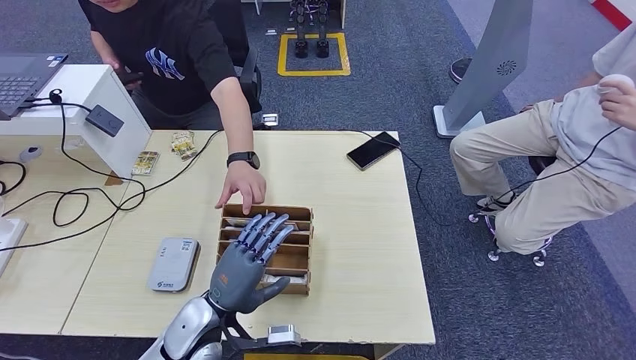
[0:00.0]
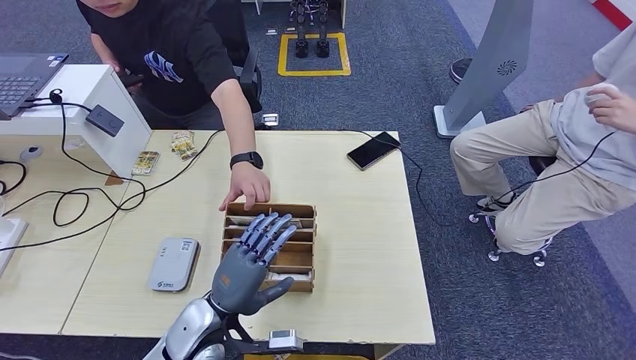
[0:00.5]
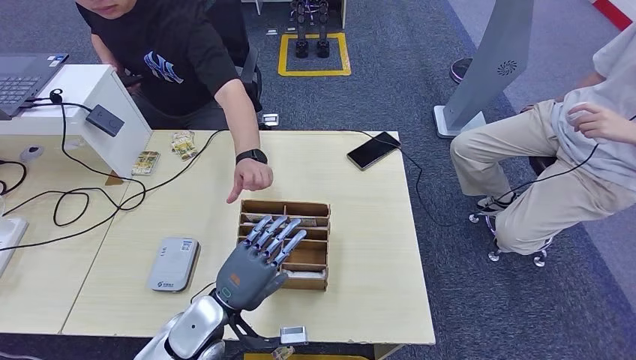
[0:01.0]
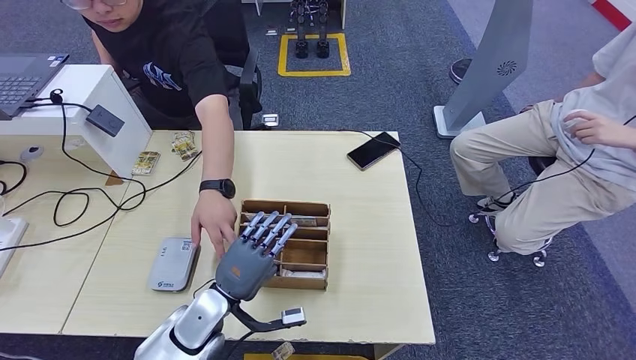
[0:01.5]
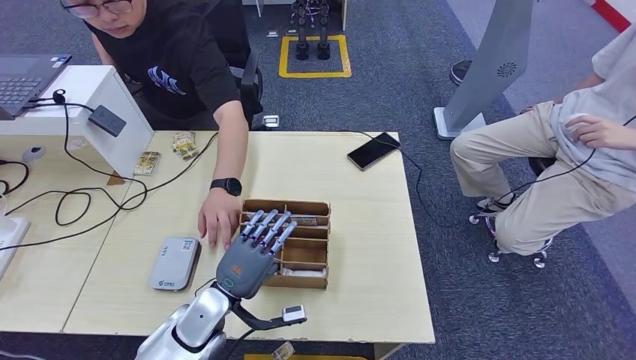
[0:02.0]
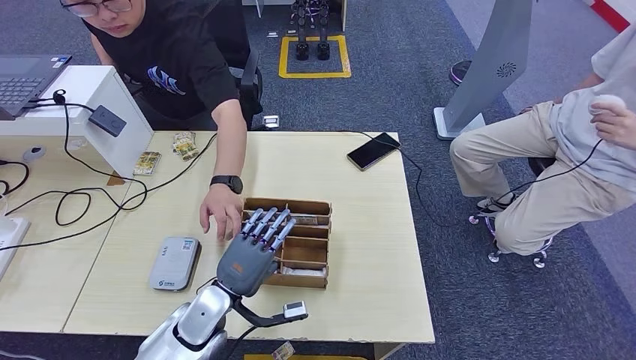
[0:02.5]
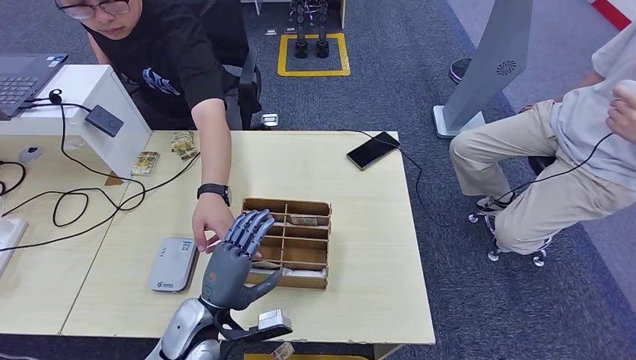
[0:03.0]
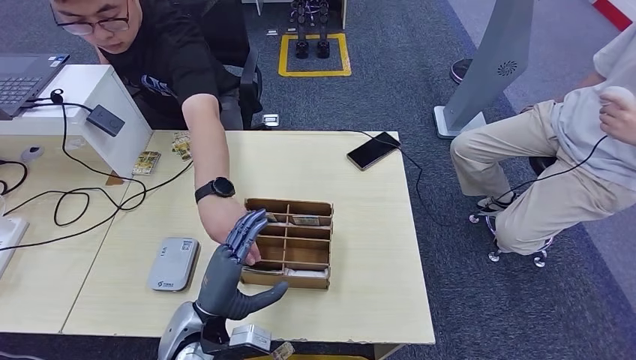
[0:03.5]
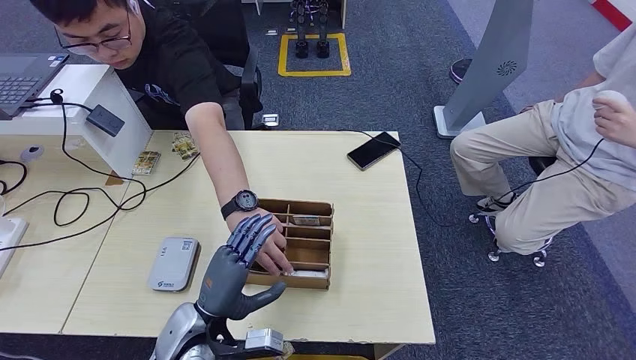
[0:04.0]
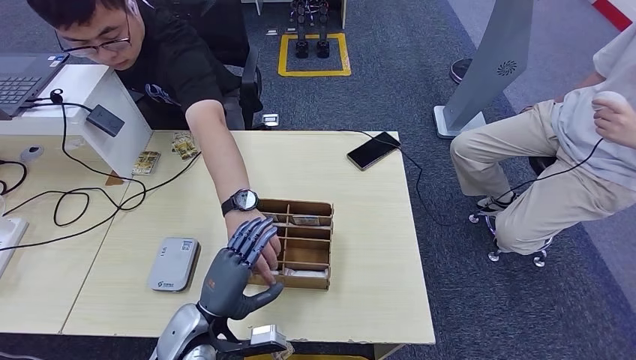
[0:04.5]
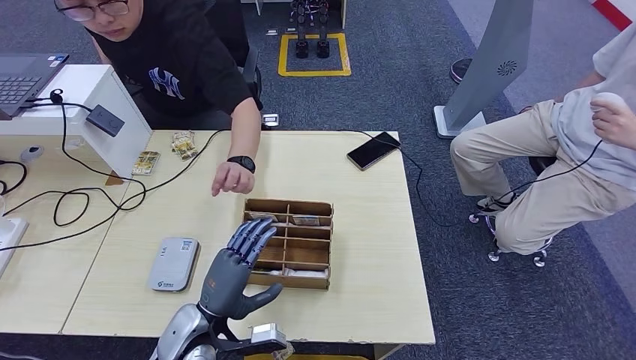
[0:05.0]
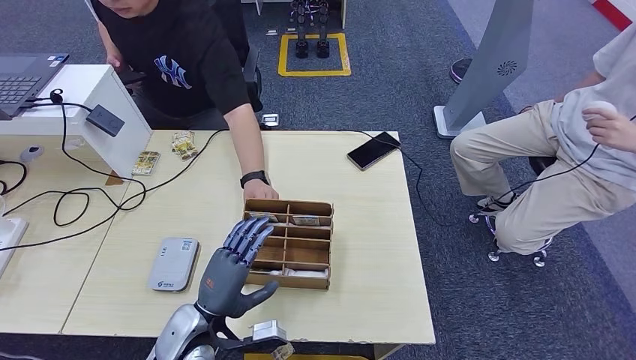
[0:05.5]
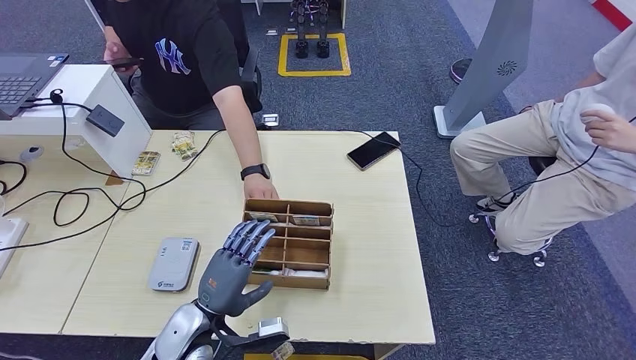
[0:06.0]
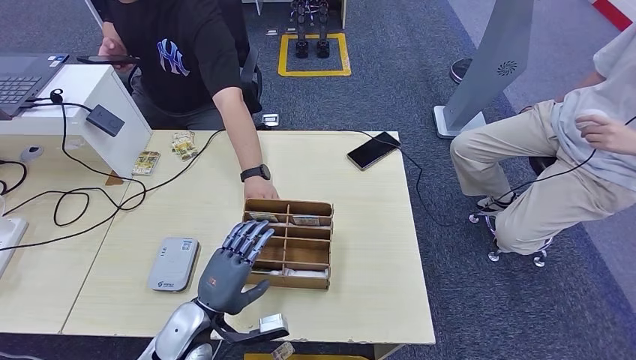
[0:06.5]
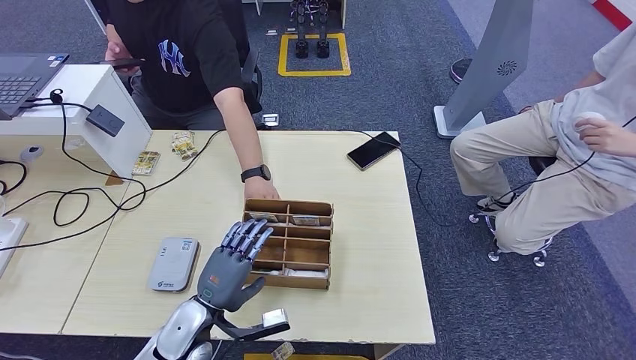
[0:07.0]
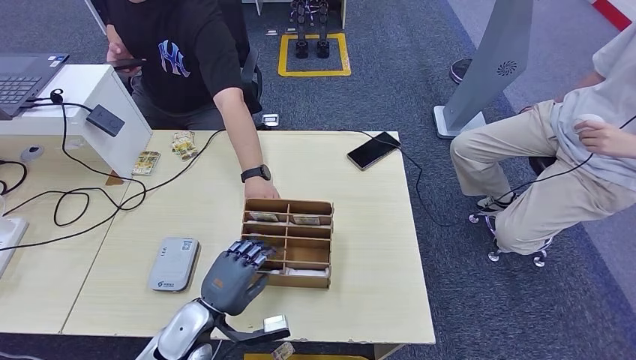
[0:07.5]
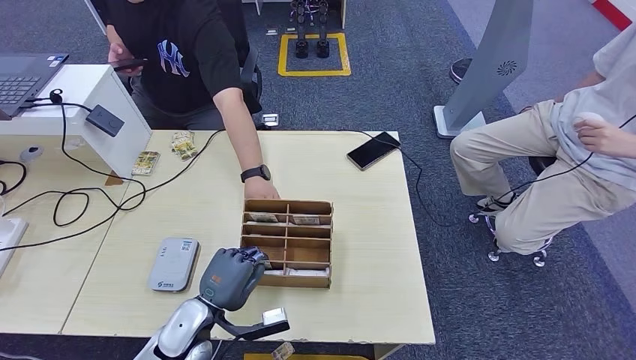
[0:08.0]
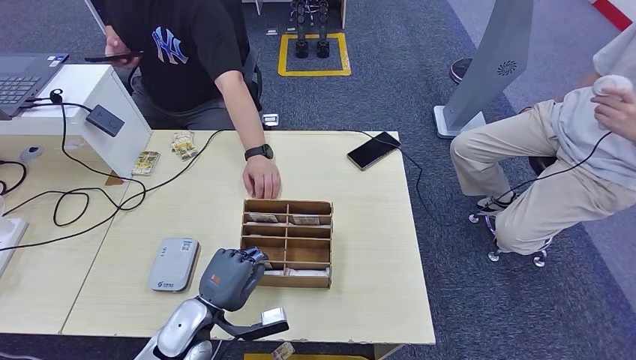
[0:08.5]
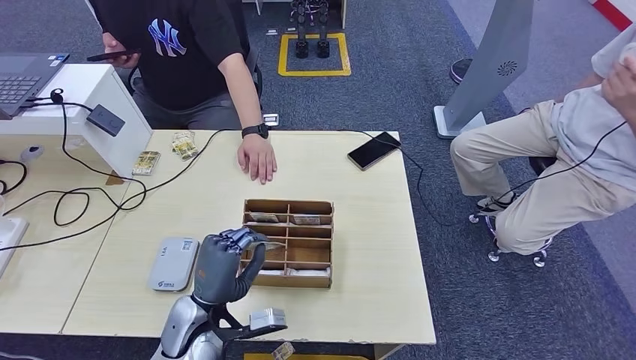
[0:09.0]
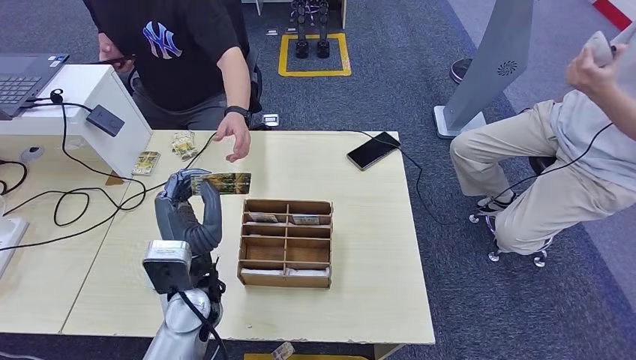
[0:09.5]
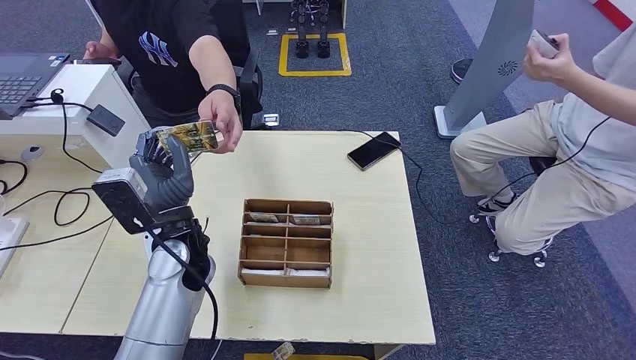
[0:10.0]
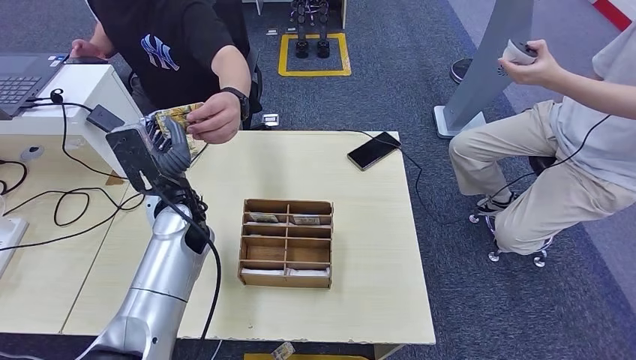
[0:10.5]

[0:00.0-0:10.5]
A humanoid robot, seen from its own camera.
Step, 0:06.5 to 0:09.5: Pick up the room key from the key card box.
0:06.5 to 0:08.5: There are only small adjustments of the hands.
0:08.5 to 0:10.5: The left hand shifts roughly 20 cm upward and forward.

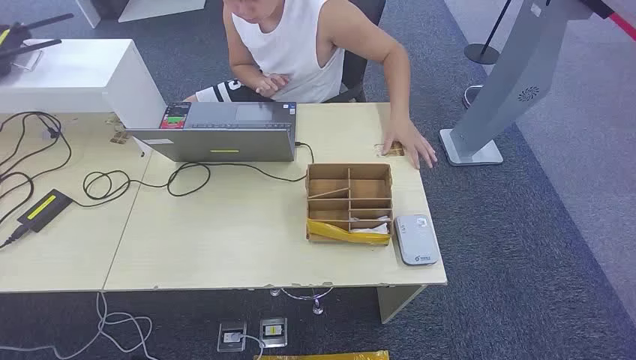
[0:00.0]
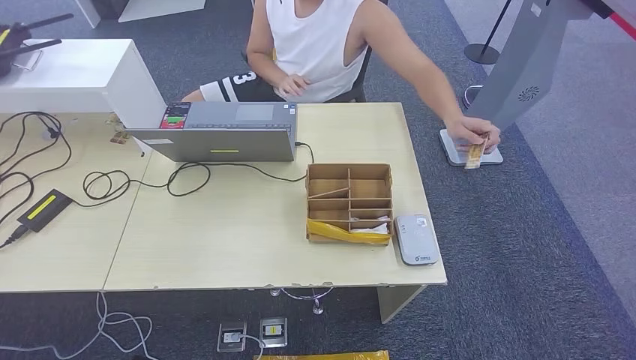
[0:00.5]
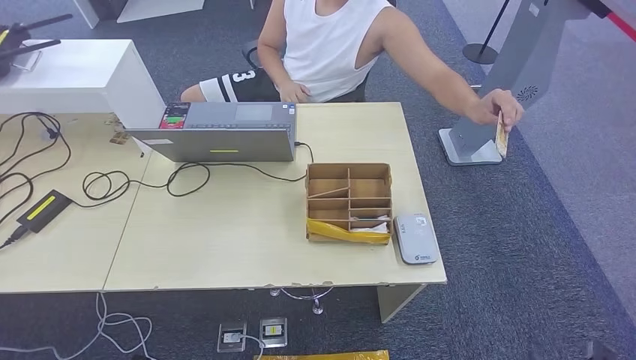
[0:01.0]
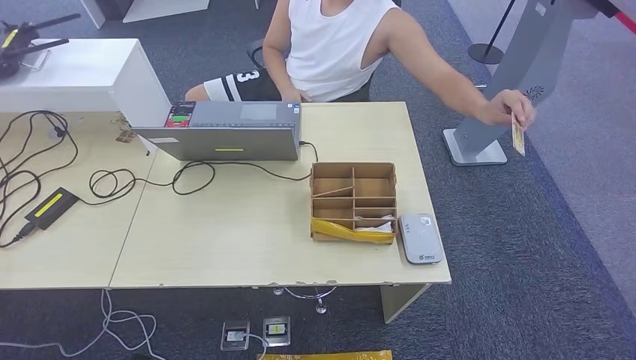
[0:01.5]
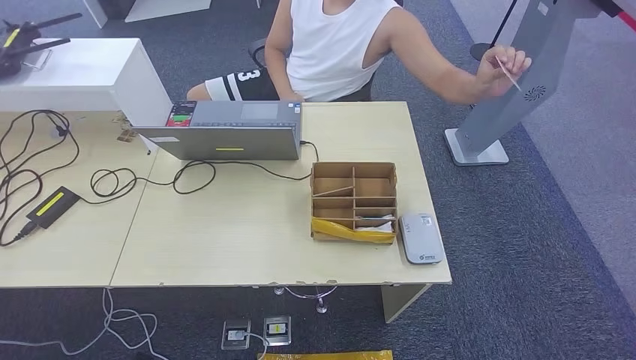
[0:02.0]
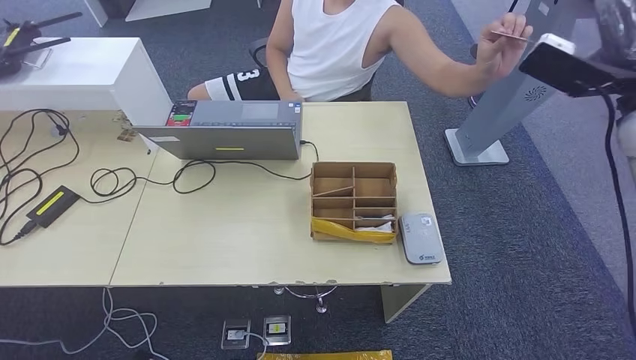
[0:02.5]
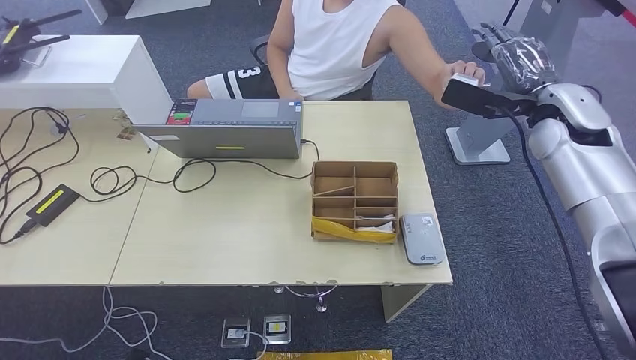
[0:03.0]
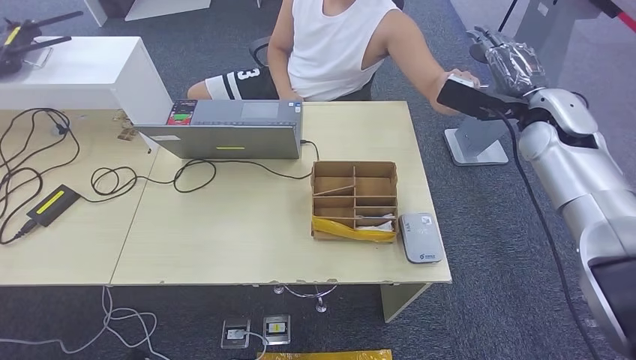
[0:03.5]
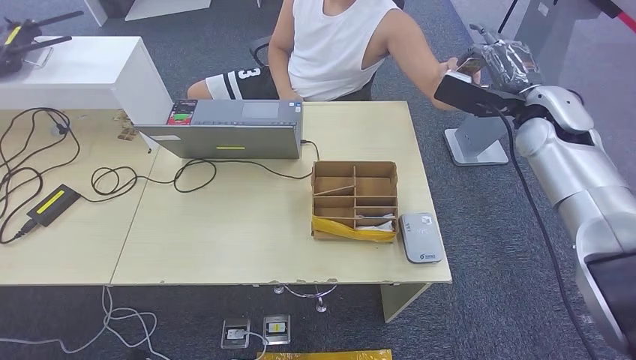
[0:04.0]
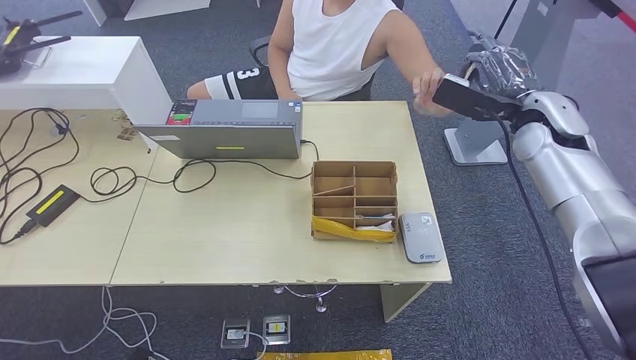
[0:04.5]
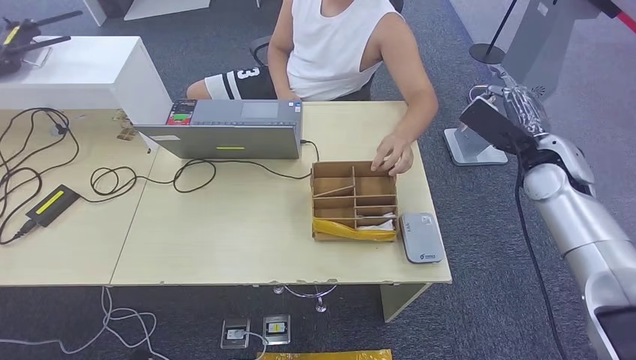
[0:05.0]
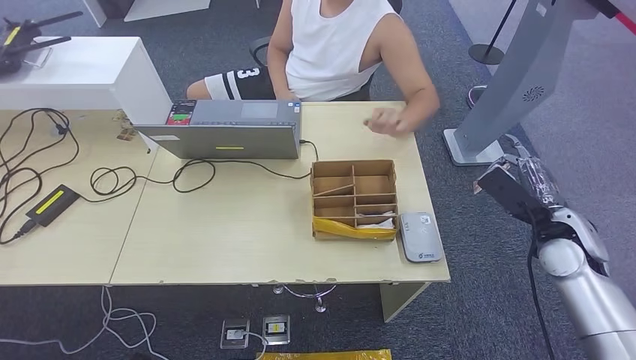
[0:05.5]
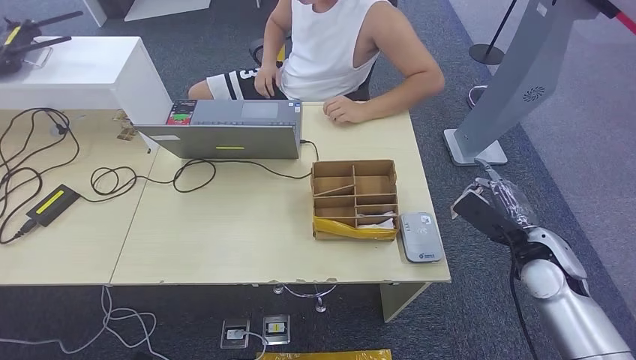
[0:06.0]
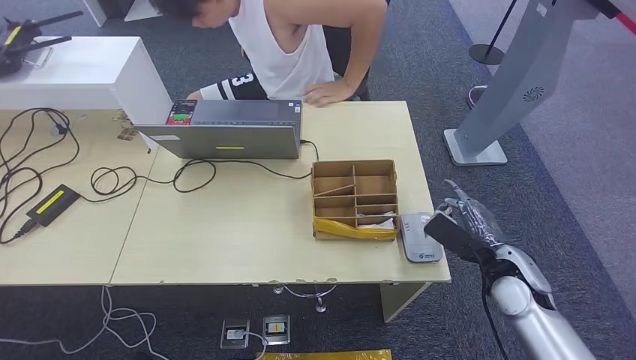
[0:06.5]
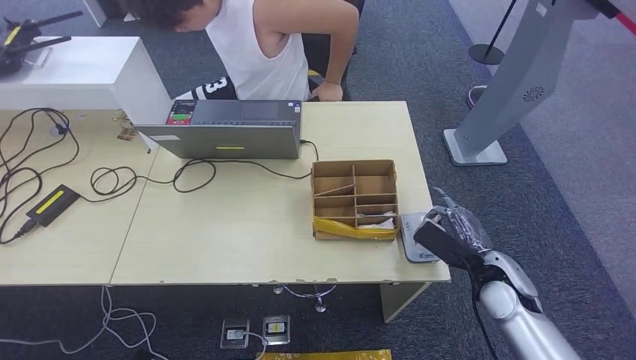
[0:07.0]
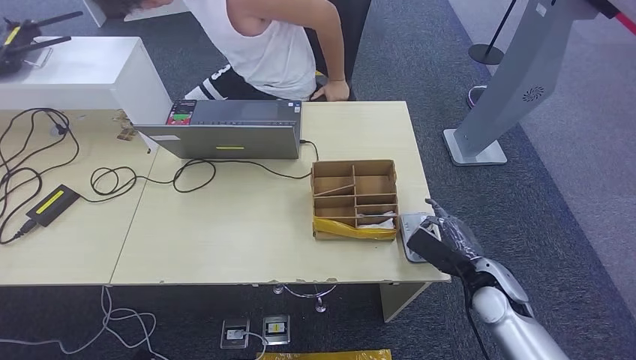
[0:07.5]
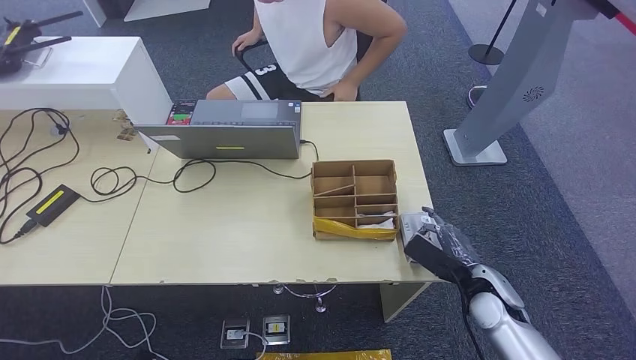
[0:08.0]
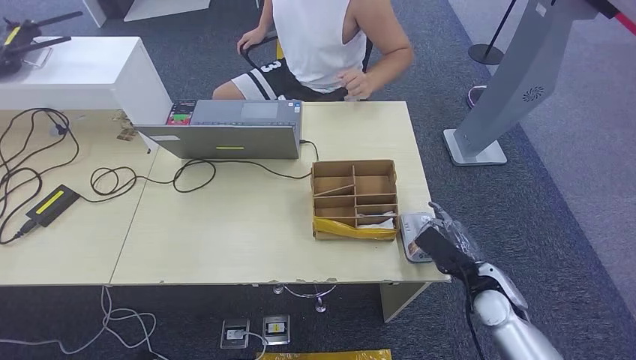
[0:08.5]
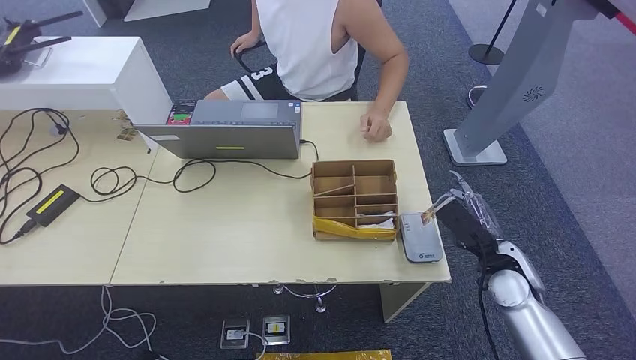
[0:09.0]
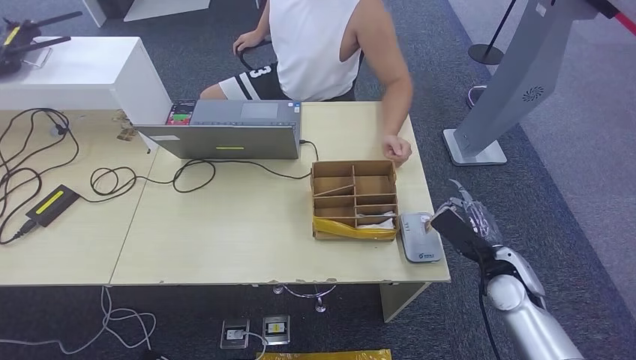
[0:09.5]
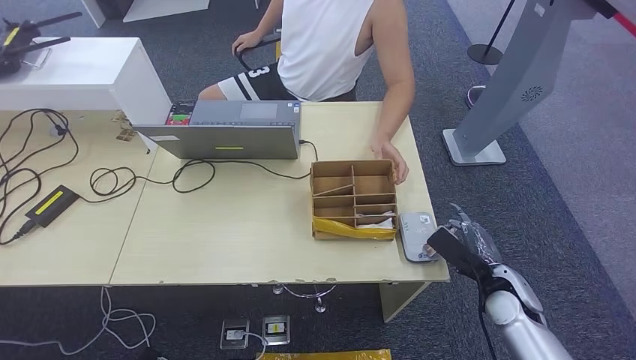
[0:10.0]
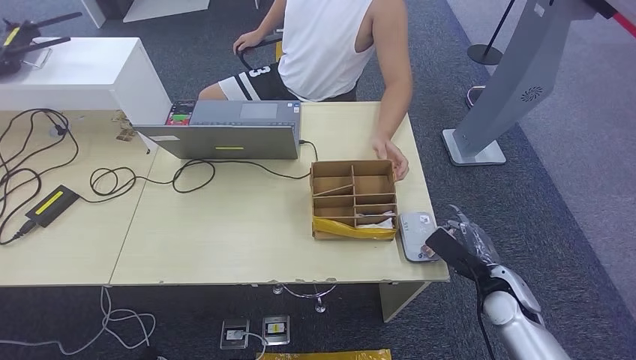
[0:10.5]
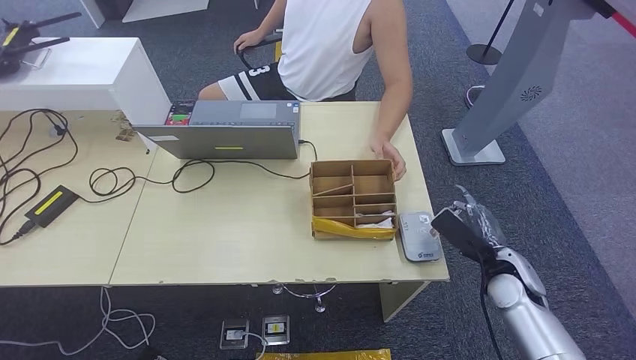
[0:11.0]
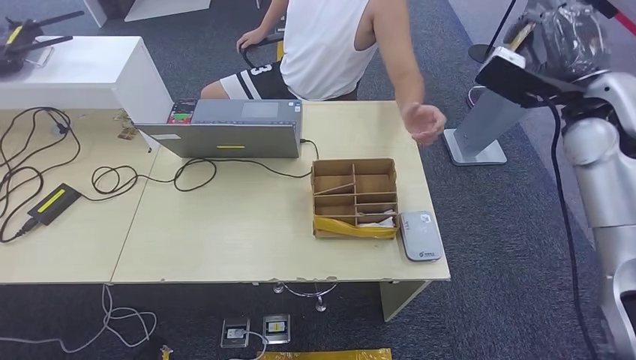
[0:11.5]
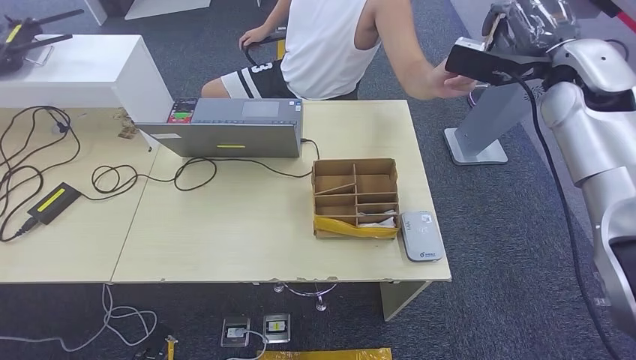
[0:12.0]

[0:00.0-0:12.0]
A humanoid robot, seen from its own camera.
Step, 0:00.0 to 0:03.5: Take the ID card from the person's hand.
Step, 0:04.0 to 0:06.5: Place the ID card on the card reader.
0:02.0 to 0:04.0: The right hand shifts about 25 cm to the left and forward.
0:04.0 to 0:06.0: The right hand travels downward and backward by approximately 20 cm.
0:06.0 to 0:08.0: The right hand shifts approximately 10 cm downward and to the left.
0:08.0 to 0:10.0: The hands stay close to where they were, moving slightly.
